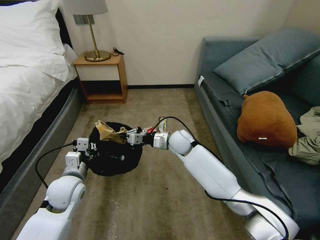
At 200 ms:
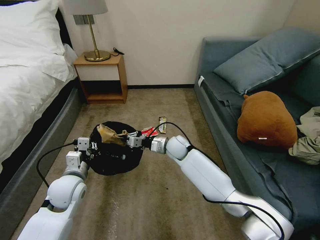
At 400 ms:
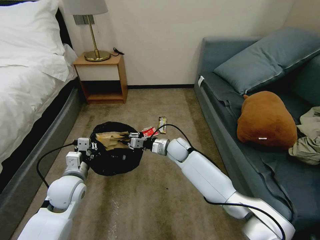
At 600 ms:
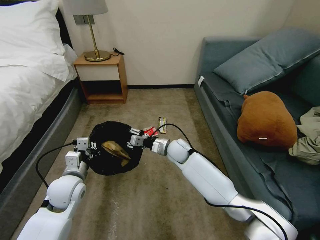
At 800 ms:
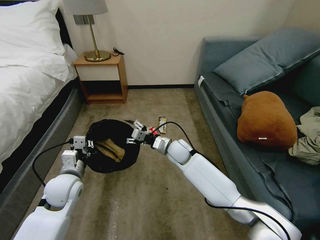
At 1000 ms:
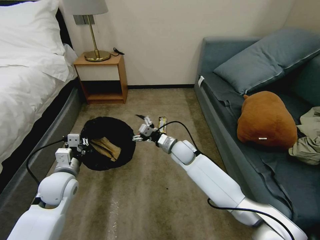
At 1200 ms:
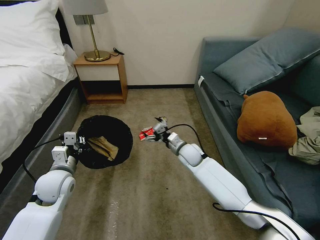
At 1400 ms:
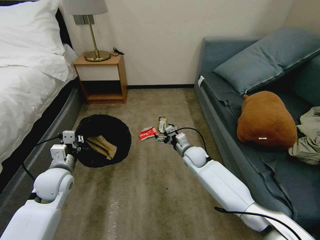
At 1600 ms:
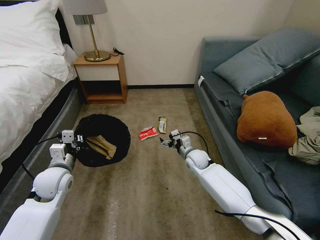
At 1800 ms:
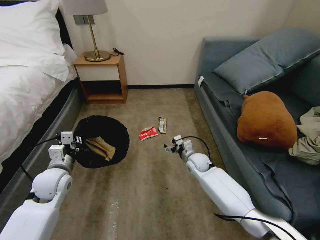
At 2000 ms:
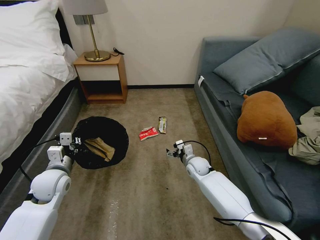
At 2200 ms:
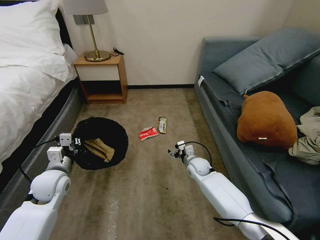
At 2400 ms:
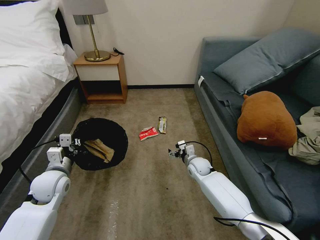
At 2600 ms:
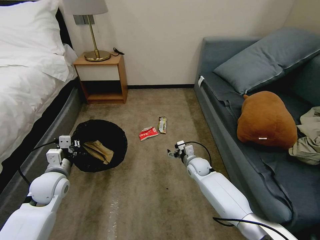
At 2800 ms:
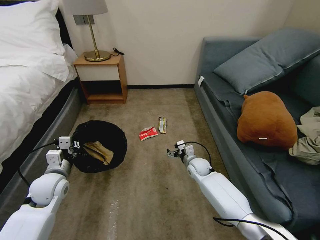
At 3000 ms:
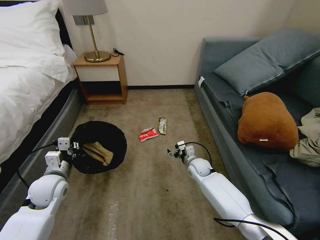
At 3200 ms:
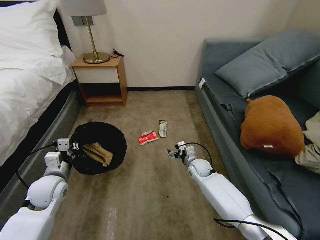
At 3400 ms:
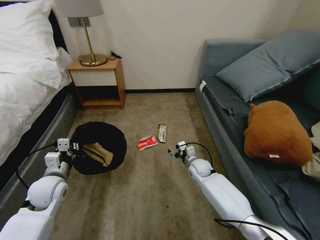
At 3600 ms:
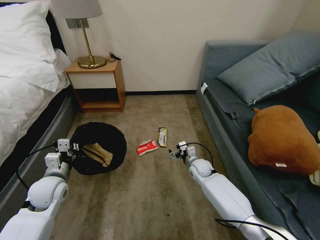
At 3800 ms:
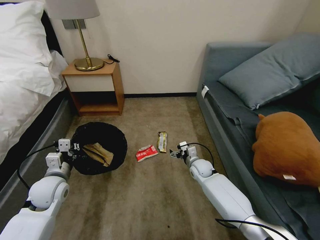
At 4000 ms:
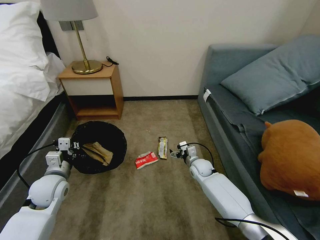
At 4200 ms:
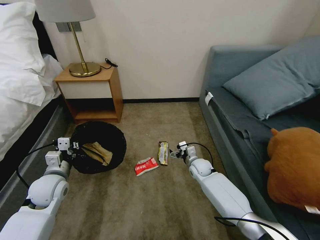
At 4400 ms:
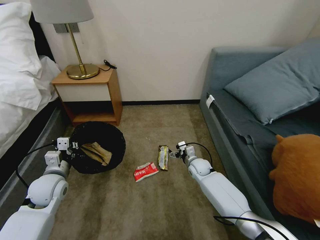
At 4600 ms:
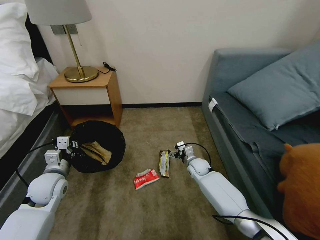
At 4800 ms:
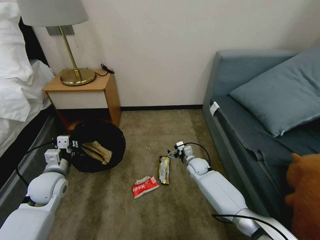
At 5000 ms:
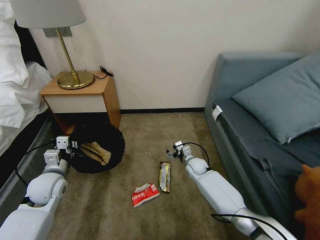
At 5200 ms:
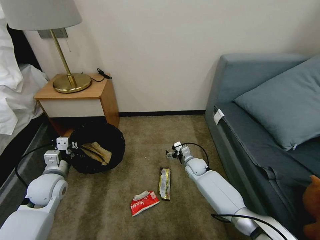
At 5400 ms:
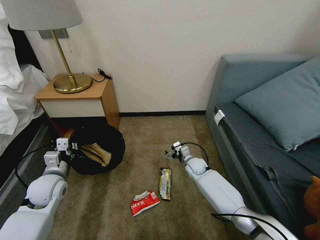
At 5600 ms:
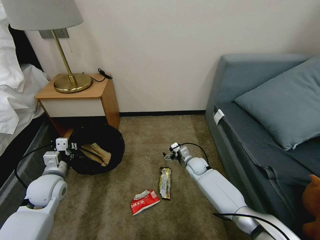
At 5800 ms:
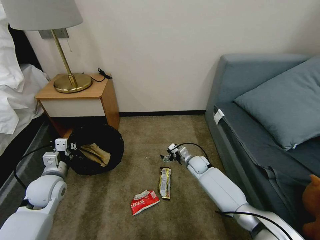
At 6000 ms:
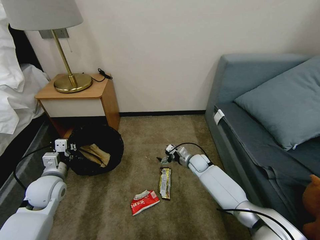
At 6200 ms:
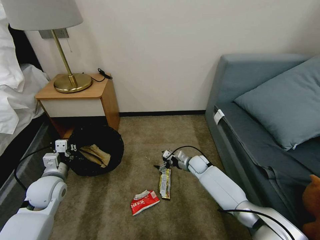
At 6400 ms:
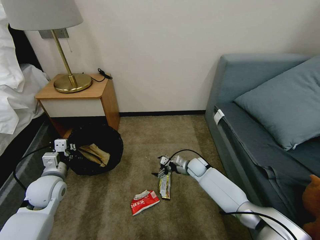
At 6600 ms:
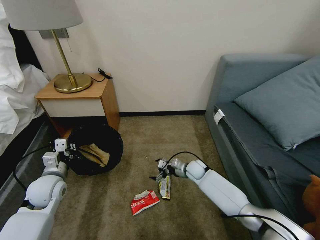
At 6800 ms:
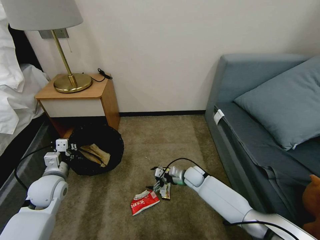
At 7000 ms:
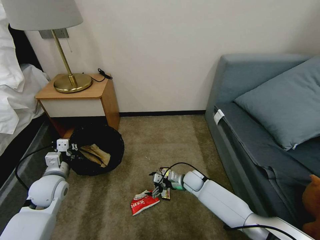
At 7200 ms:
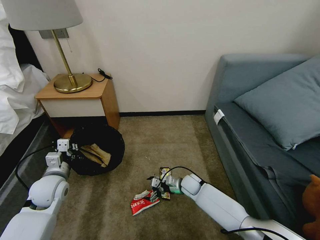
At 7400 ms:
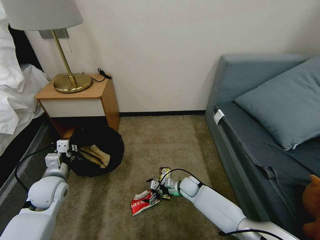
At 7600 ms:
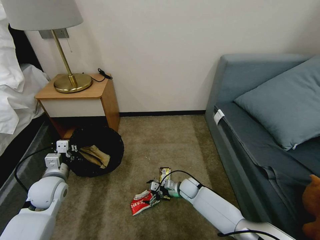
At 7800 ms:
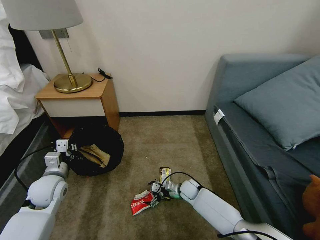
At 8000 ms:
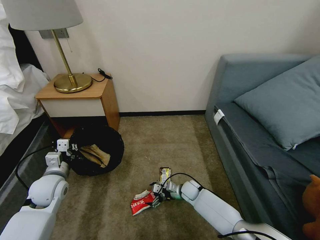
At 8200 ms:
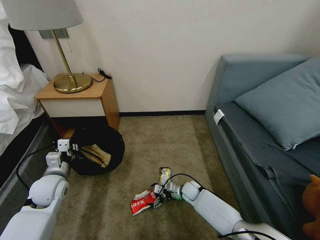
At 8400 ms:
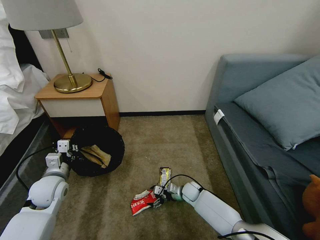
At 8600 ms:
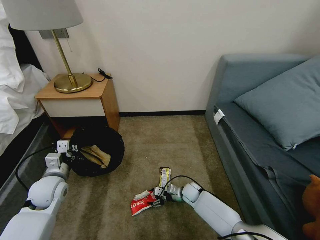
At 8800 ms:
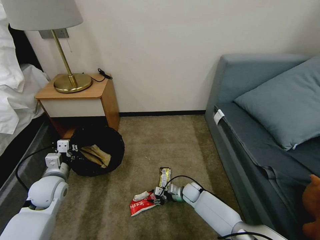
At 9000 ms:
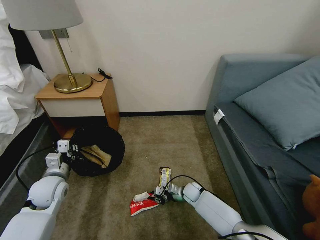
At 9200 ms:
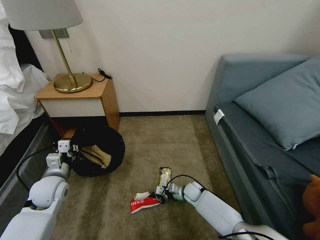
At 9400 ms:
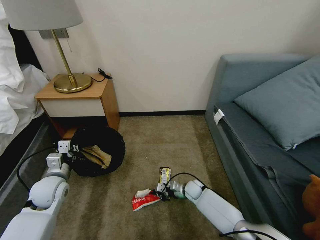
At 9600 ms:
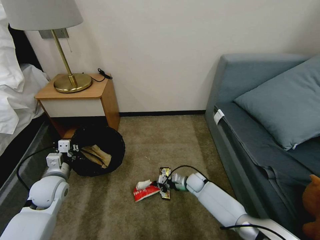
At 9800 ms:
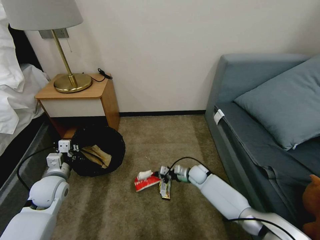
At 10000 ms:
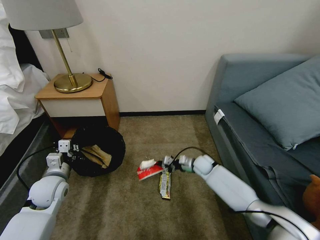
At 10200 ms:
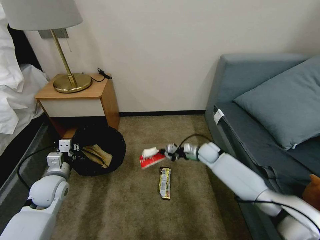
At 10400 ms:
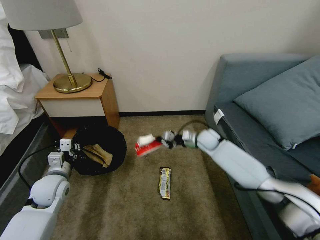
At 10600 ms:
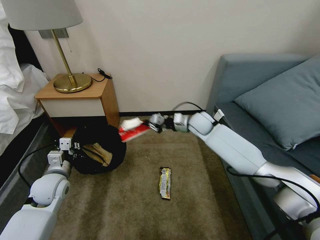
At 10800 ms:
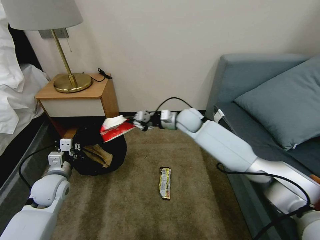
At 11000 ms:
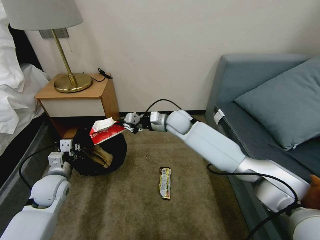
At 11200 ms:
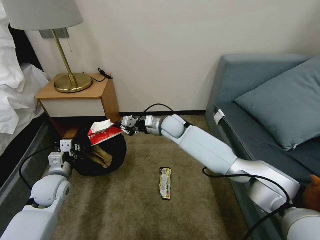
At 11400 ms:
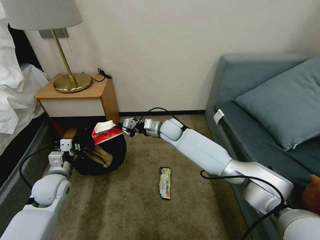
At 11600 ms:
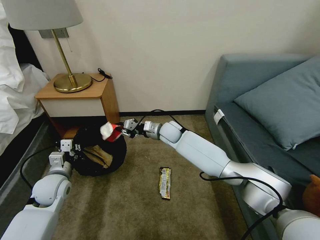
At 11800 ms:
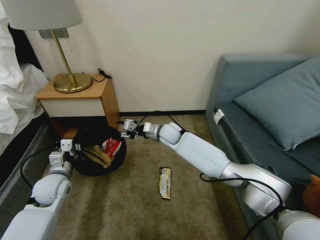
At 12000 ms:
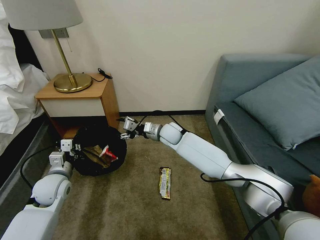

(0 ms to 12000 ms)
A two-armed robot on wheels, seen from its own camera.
Task of the whole recording: Pick up the trash bin, then pick up the garbage on the floor and place it into the trash bin.
0 ms - 1600 ms: The left gripper moves roughly 5 cm, while the right gripper shifts approximately 15 cm downward and to the right, and opens.
1600 ms - 3000 ms: The right gripper changes place by approximately 5 cm.
6000 ms - 7600 ms: The right gripper goes roughly 10 cm backward and downward.
7600 ms - 9000 ms: The right gripper closes.
9000 ms - 10400 ms: The right gripper heads upward and forward, covering approximately 25 cm.
10400 ms - 12000 ms: The right gripper goes approximately 15 cm to the left, and opens its fingers.

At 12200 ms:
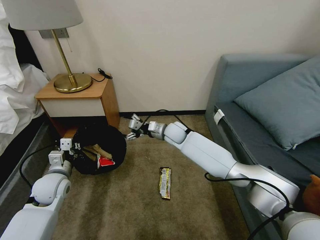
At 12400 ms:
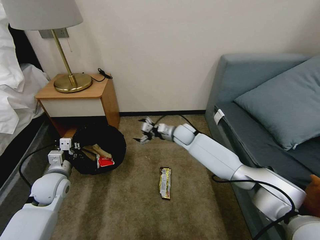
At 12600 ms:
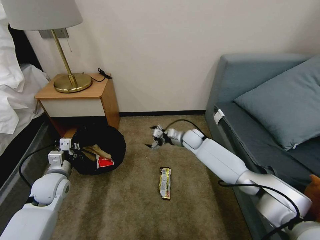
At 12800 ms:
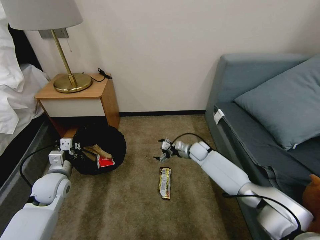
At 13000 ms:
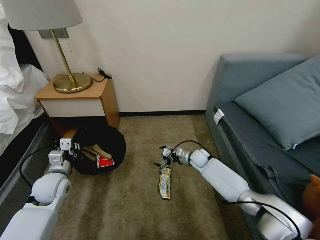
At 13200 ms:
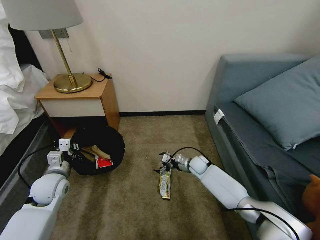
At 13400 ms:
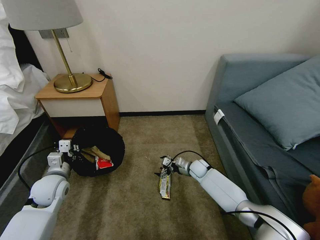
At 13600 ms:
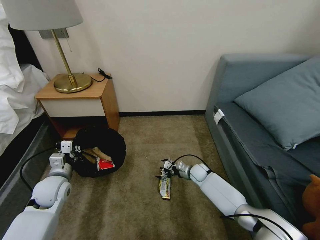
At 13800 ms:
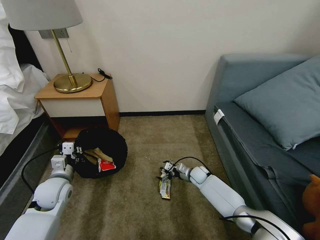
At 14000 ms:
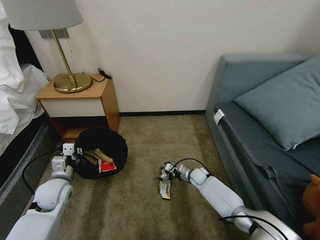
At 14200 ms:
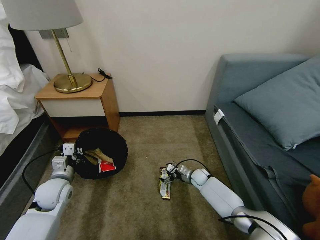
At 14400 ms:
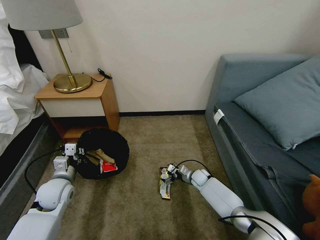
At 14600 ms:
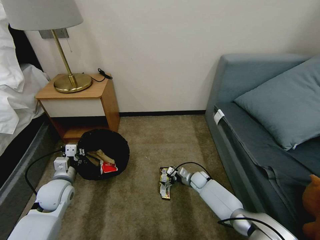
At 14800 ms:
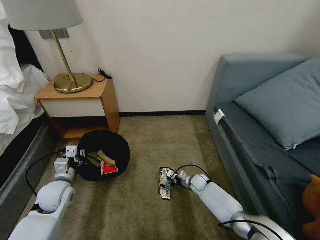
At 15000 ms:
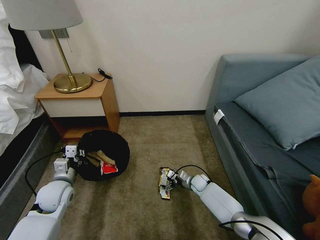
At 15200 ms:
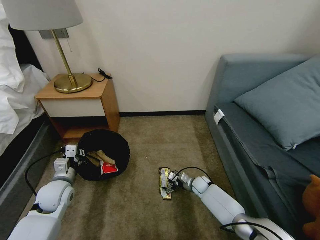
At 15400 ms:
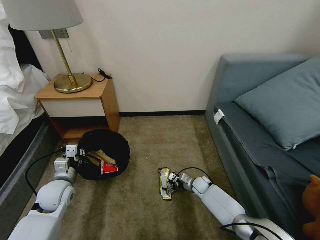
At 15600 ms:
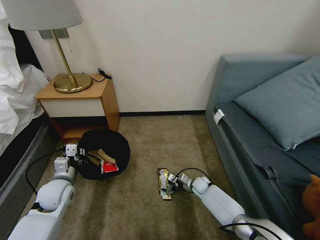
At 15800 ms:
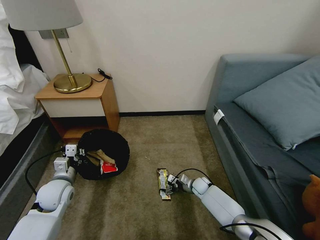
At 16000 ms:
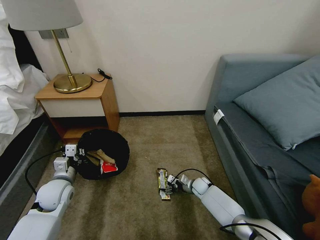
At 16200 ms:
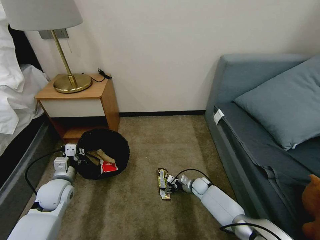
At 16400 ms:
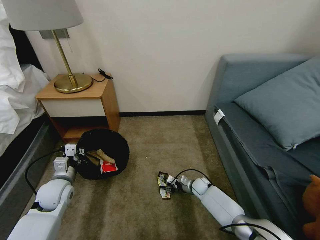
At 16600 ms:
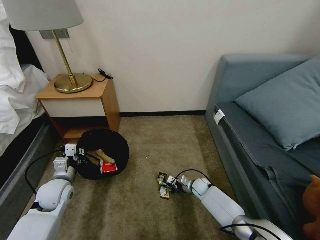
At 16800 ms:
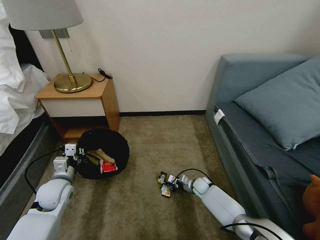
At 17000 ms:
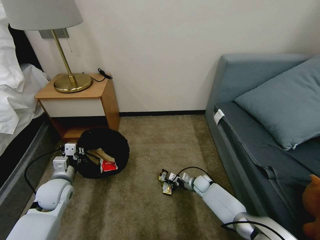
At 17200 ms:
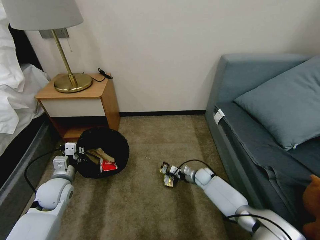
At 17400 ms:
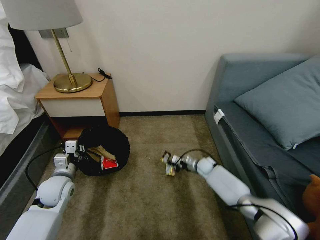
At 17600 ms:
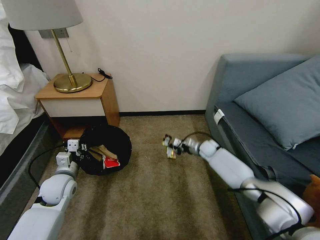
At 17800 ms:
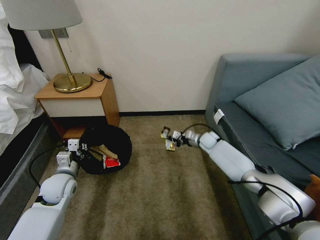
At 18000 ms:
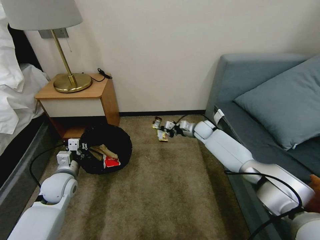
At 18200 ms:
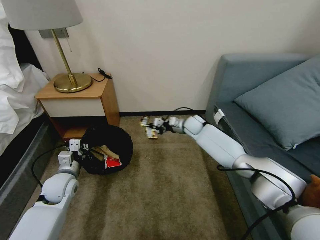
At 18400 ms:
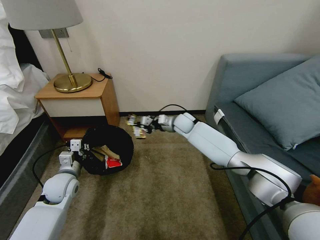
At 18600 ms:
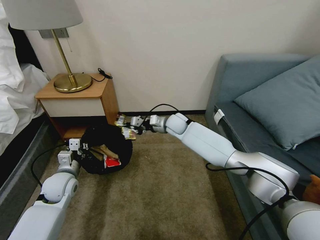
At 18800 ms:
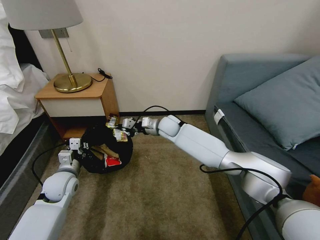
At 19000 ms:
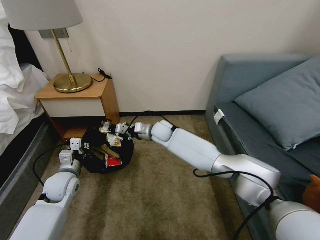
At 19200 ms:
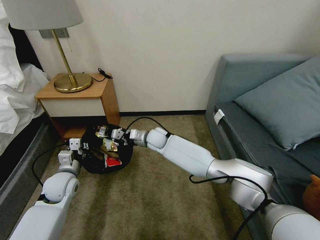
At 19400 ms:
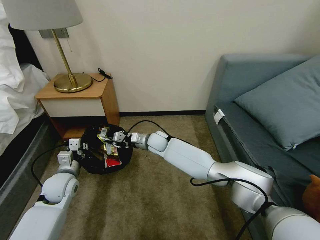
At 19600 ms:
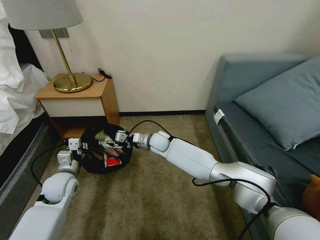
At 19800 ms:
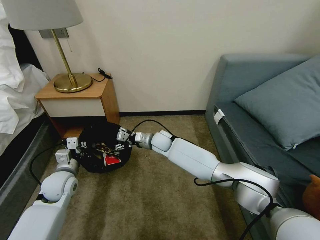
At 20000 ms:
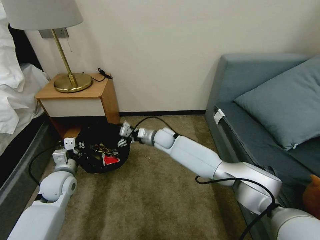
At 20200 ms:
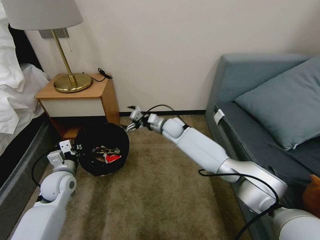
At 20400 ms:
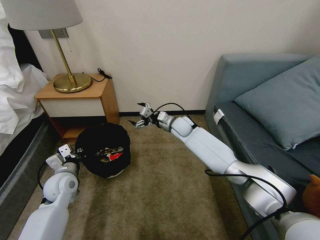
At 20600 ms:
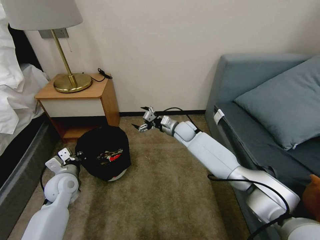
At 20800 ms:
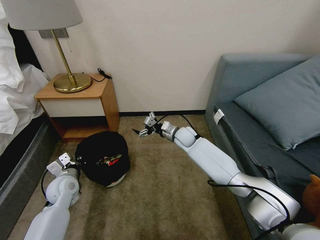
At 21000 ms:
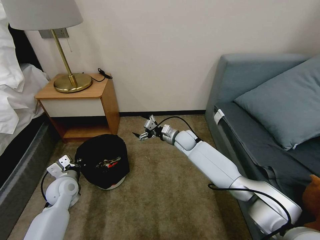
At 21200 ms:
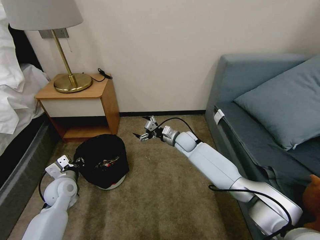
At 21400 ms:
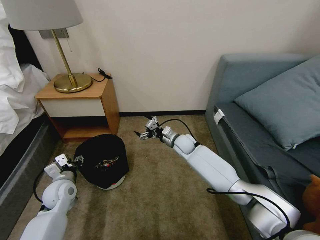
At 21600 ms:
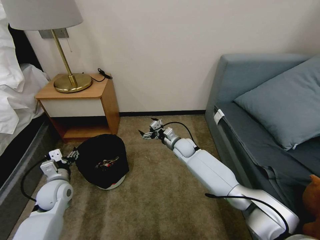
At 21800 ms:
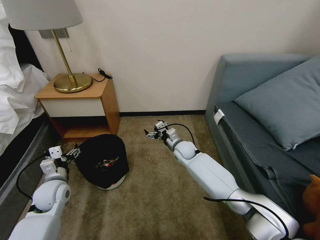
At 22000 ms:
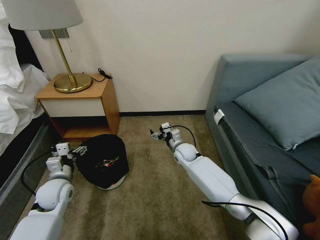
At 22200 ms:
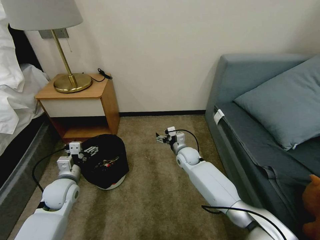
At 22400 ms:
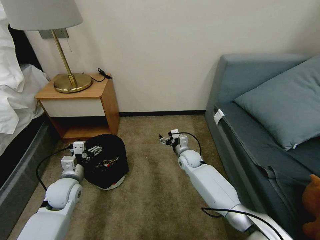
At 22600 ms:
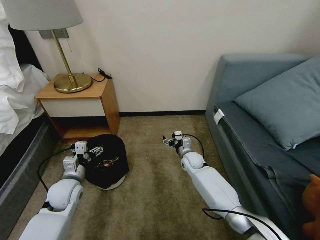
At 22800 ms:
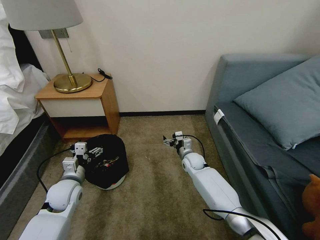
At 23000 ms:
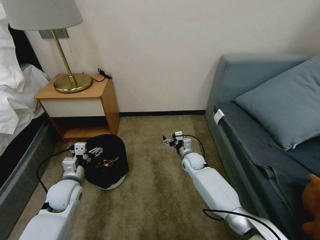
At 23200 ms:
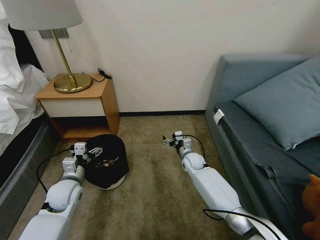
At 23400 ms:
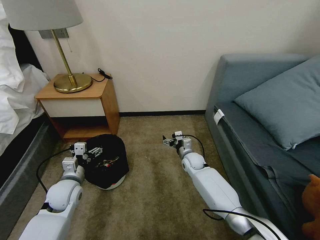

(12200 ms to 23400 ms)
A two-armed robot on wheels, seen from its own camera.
Task of the whole recording: Pick up the trash bin, then pick up the garbage on the floor and place it into the trash bin.
12200 ms - 13800 ms: The right gripper is displaced downward and to the right by approximately 25 cm.
13800 ms - 15400 ms: The right gripper shifts by roughly 5 cm.
15400 ms - 17000 ms: The right gripper closes.
17000 ms - 18600 ms: The right gripper heads upward, to the left and forward, covering some 35 cm.
18600 ms - 20200 ms: The right gripper goes to the left and returns, about 10 cm each way, and opens up.
20200 ms - 21800 ms: The left gripper opens its fingers. Meanwhile the right gripper is displaced downward and backward by some 10 cm.
21800 ms - 23400 ms: The right gripper shifts some 5 cm downward.
